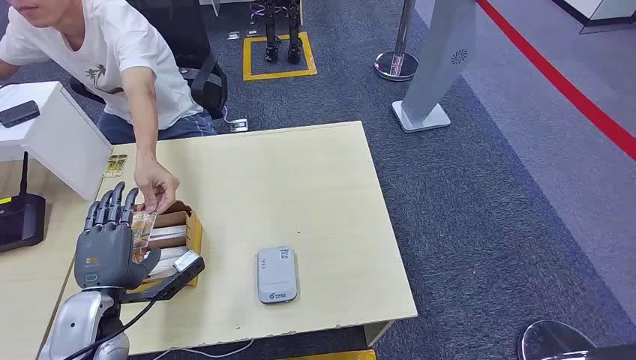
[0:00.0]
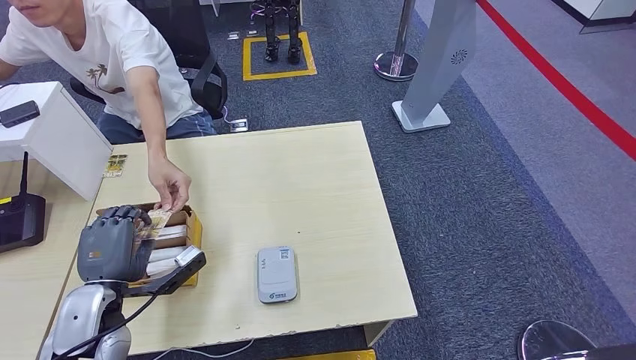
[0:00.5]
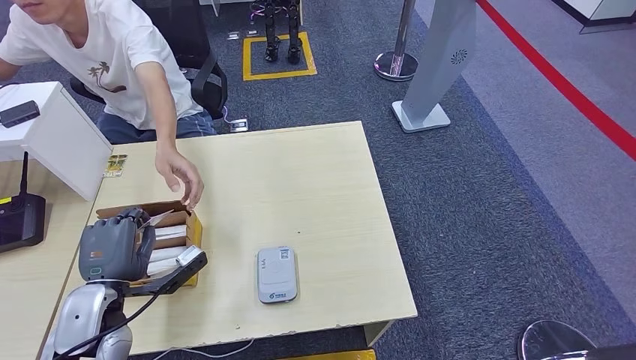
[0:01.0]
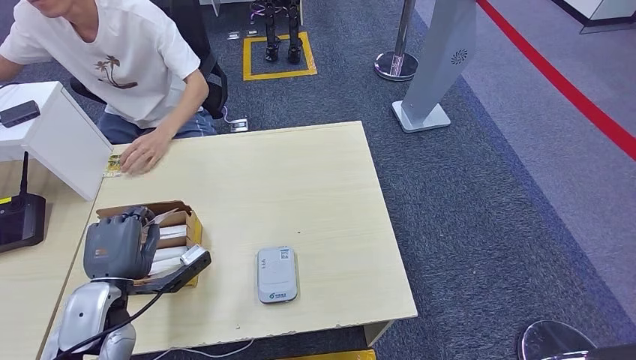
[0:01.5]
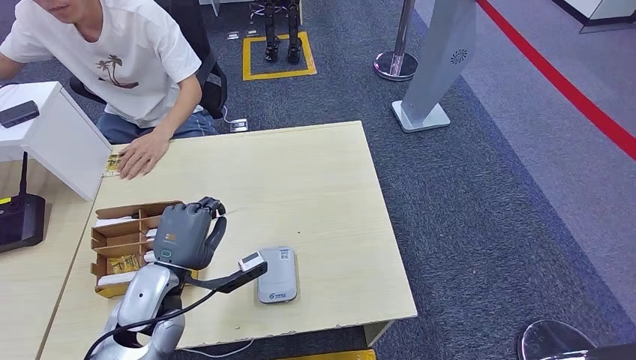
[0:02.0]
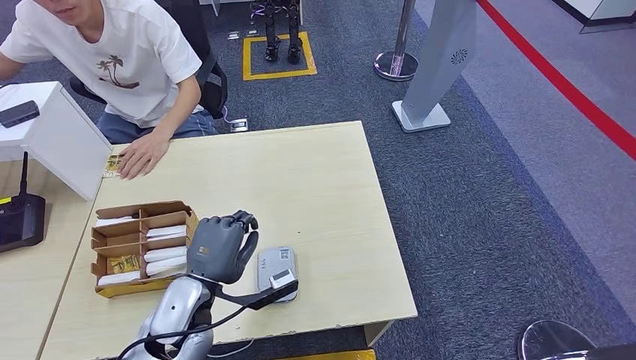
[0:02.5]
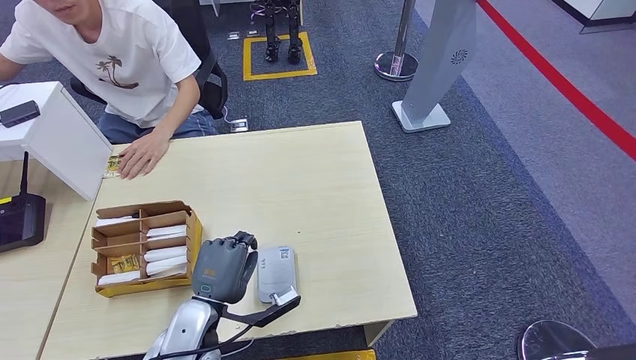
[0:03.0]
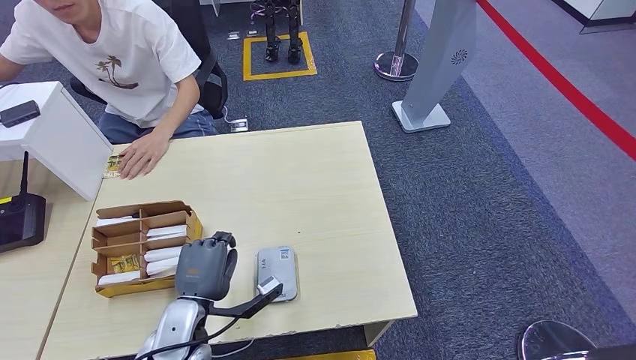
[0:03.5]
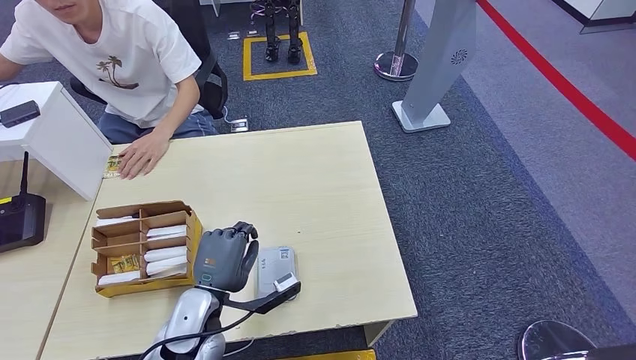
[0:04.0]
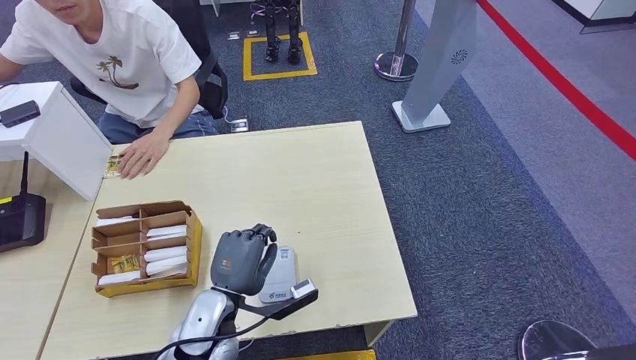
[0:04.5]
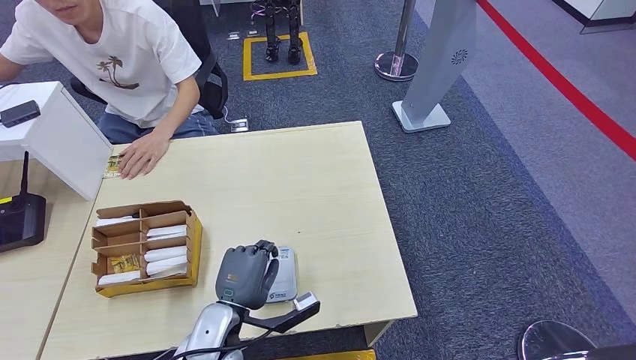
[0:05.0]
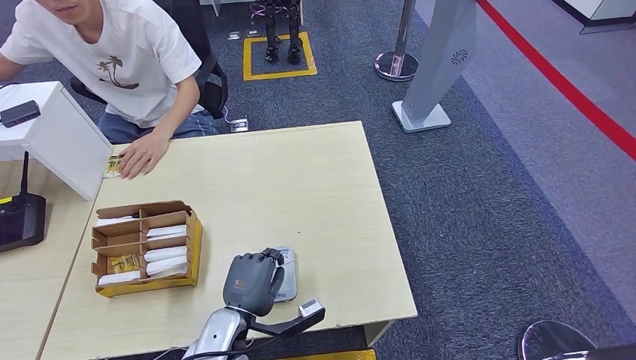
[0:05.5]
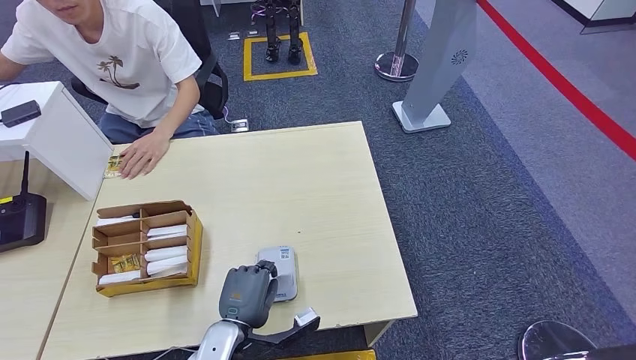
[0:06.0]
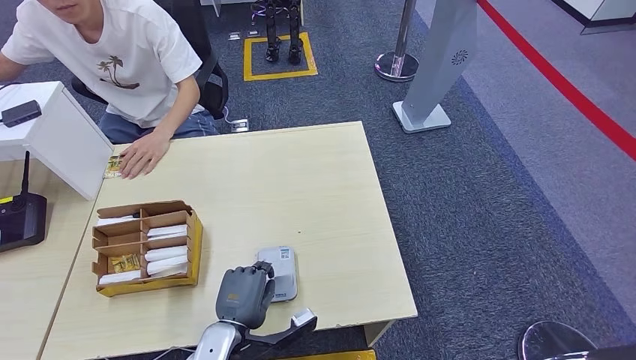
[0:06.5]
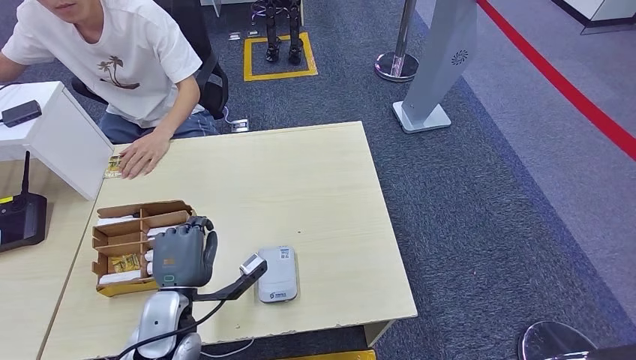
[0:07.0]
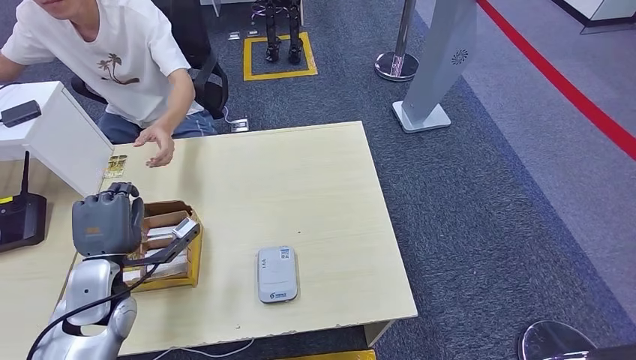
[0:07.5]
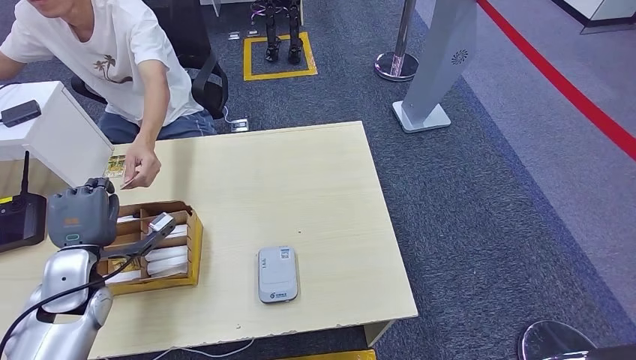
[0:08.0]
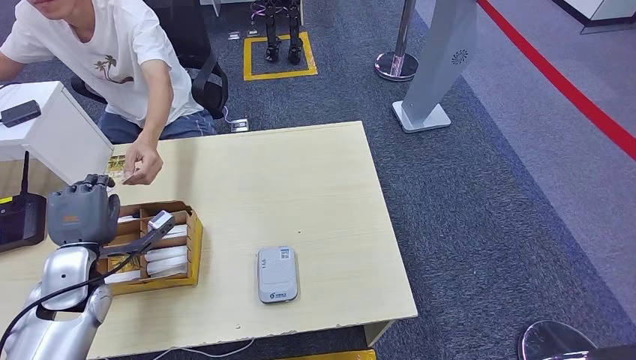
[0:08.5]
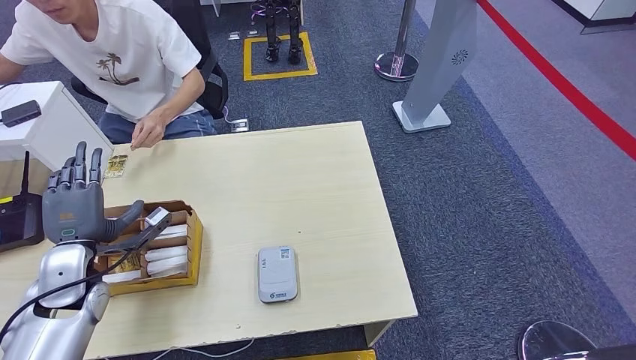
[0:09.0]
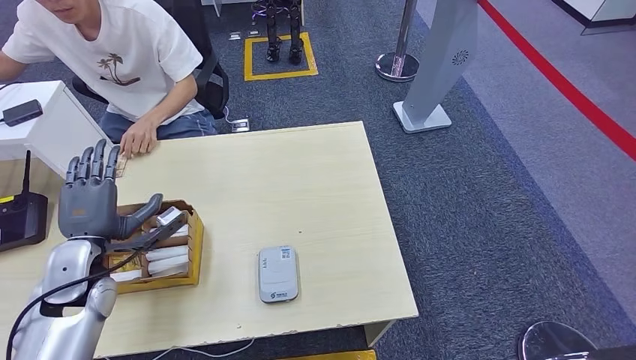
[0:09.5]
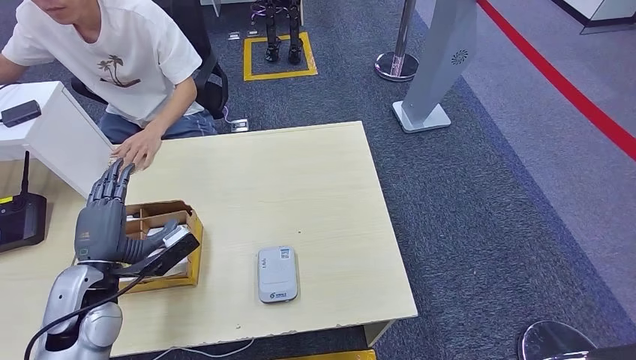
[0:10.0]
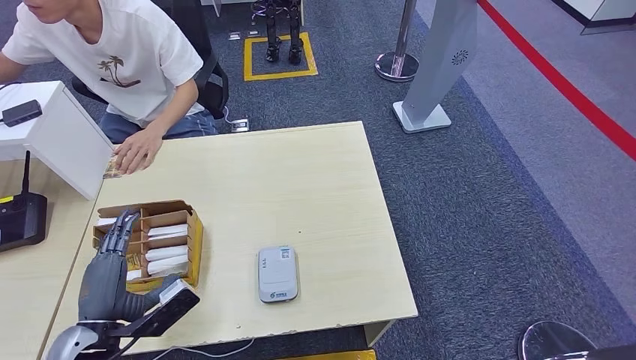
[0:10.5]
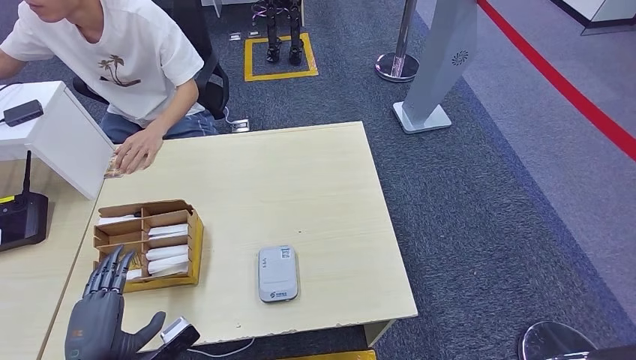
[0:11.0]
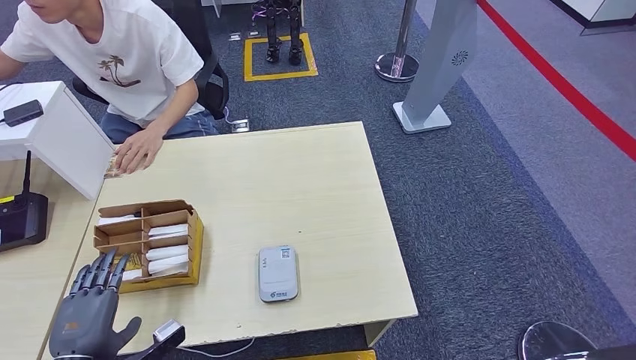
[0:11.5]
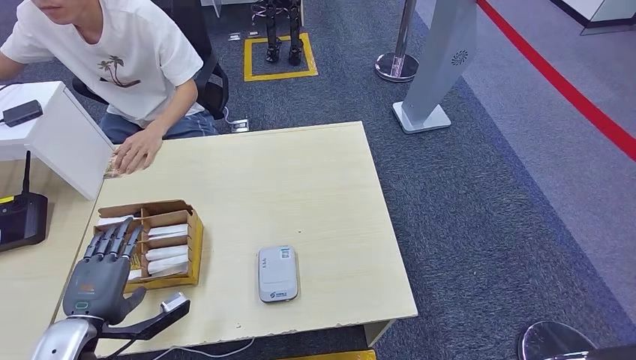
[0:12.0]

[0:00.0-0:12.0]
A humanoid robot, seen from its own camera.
Step, 0.0 to 1.0 s: Take the ID card from the person's hand.
Step, 1.5 to 7.0 s: Place the ID card on the card reader.
Step, 7.5 to 11.5 s: Hand the ID card to the person.
2.0 to 4.0 s: The left hand shifts approximately 5 cm to the right.
4.0 to 6.0 s: The left hand shifts some 5 cm downward.
6.0 to 8.0 s: The left hand shifts approximately 25 cm to the left, forward and upward.
8.0 to 10.0 s: The left hand moves about 5 cm.
10.0 to 12.0 s: The left hand shifts about 5 cm backward.

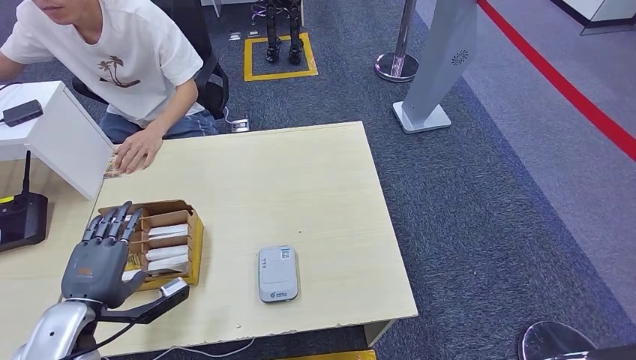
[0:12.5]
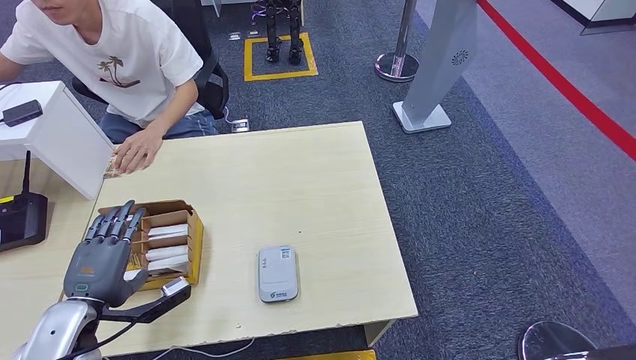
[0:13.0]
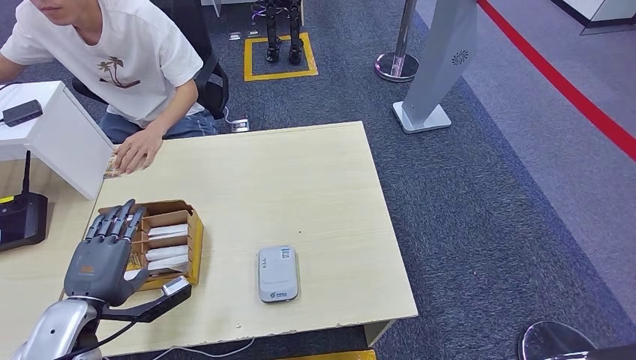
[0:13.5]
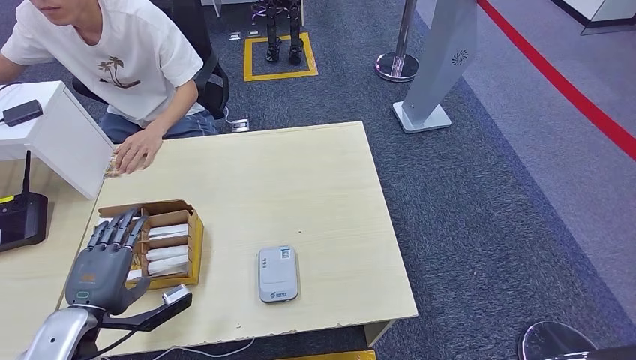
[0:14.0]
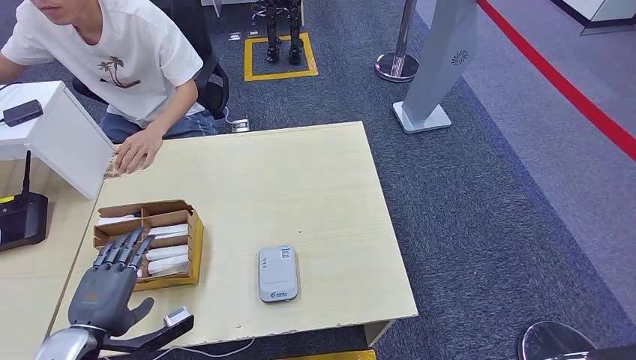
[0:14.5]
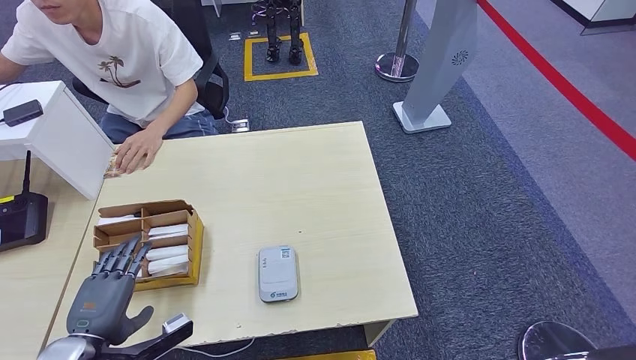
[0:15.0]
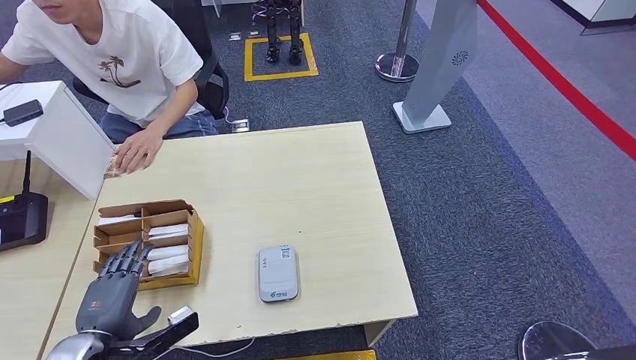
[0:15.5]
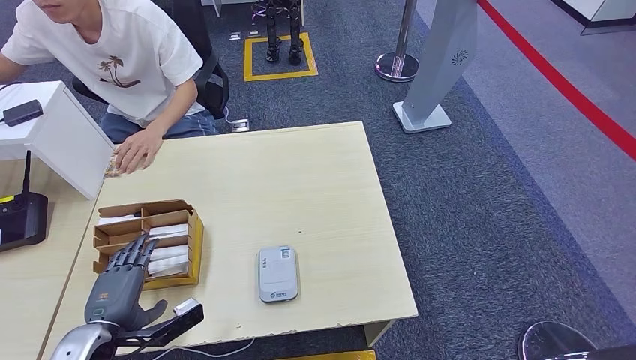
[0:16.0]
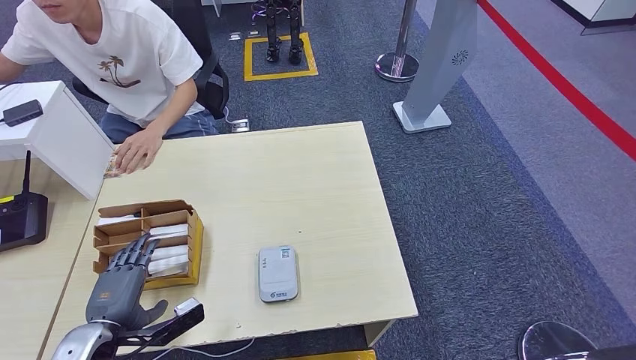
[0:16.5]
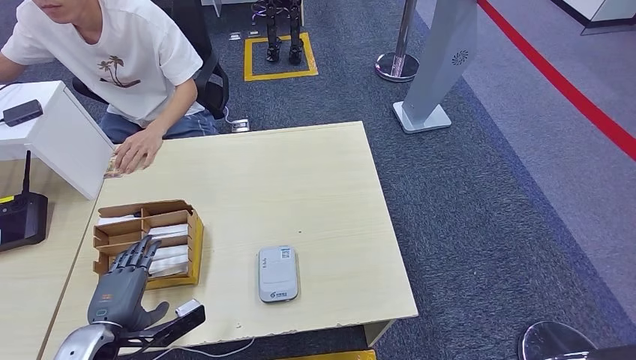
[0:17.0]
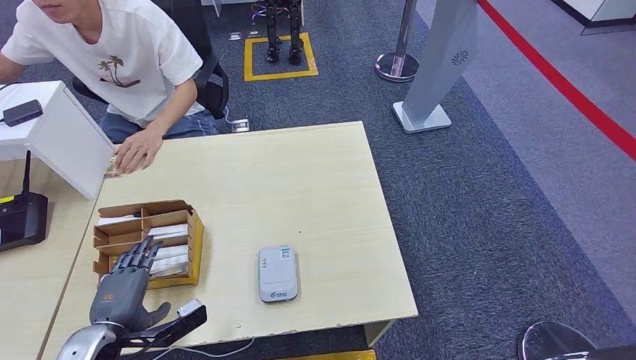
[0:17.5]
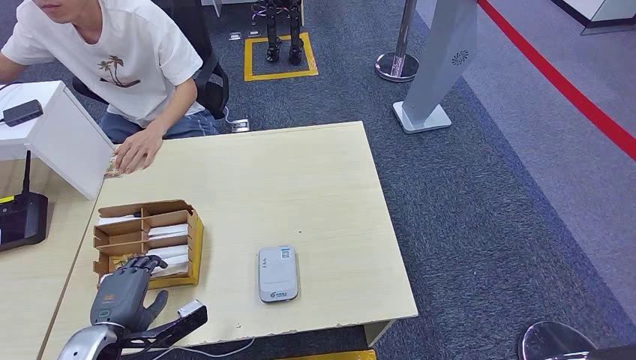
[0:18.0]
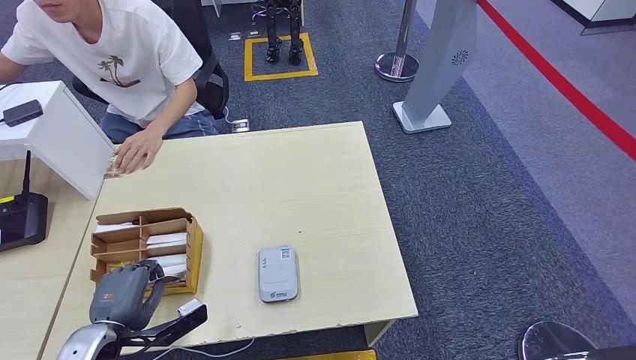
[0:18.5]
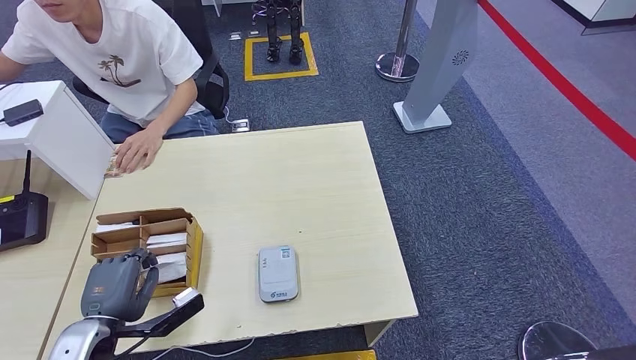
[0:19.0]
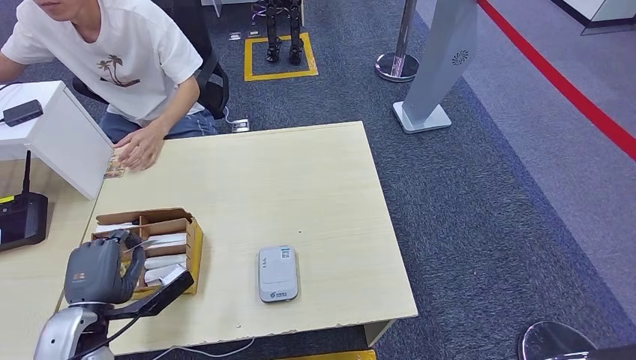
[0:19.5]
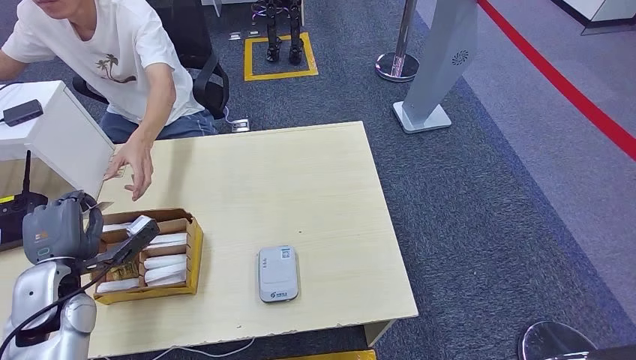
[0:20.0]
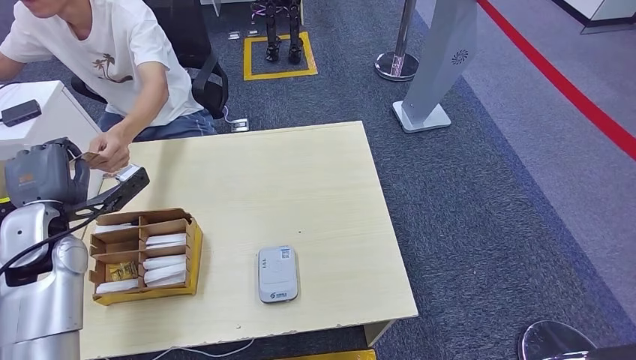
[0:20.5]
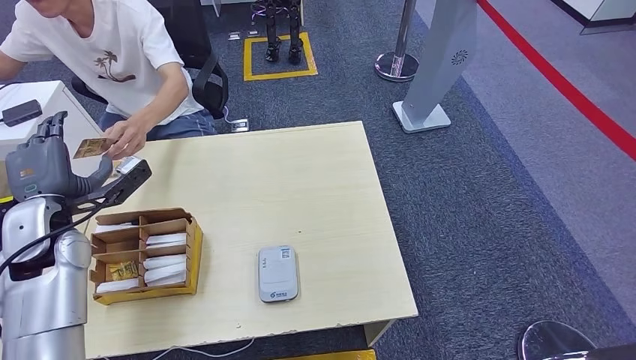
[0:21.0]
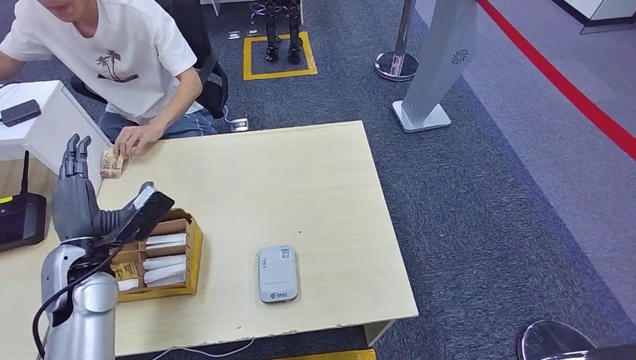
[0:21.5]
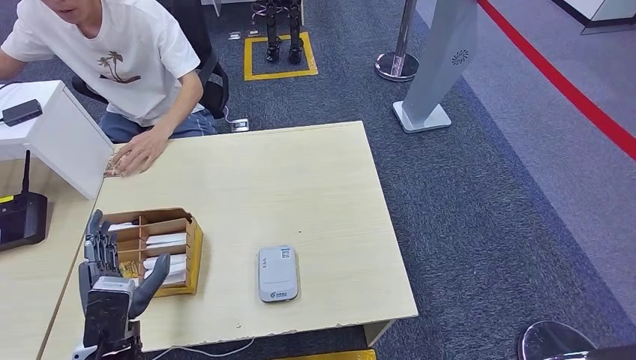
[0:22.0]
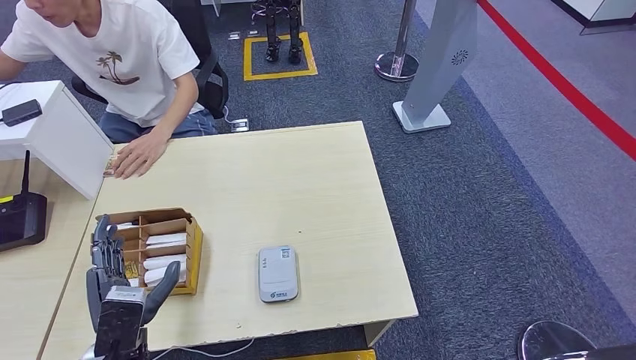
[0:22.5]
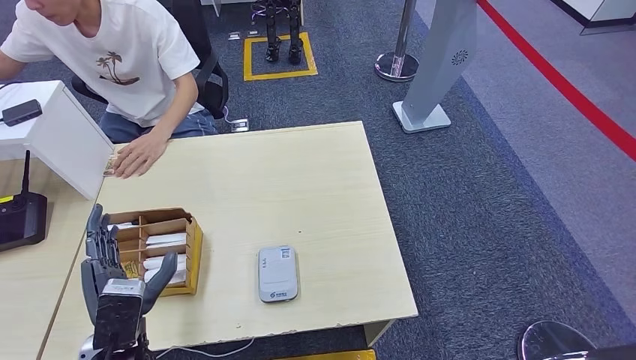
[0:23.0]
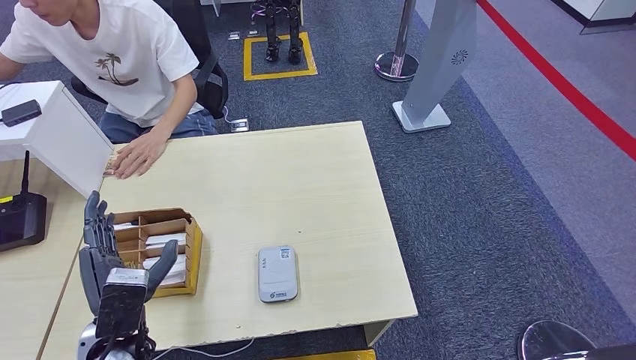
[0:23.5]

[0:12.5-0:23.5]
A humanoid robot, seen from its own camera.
Step, 12.5 to 19.5 s: Pick up the room key from the key card box.
12.5 to 16.0 s: The hands make only small movements.
16.0 to 18.0 s: Neither hand changes place.
18.0 to 20.0 s: The left hand heads forward, upward and to the left, covering approximately 10 cm.
21.5 to 23.5 s: The left hand heads backward and to the right, covering approximately 15 cm.
